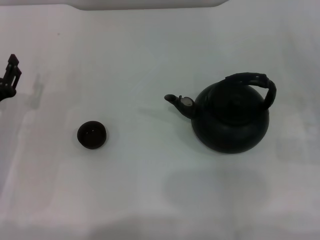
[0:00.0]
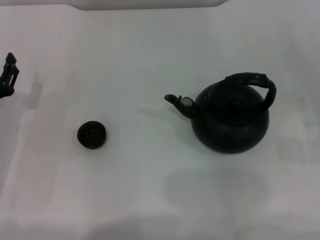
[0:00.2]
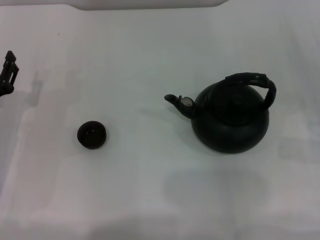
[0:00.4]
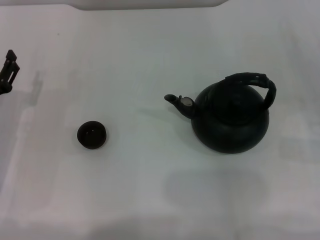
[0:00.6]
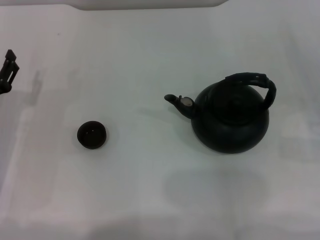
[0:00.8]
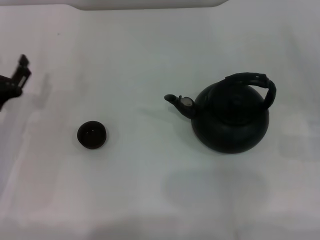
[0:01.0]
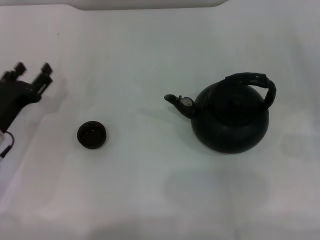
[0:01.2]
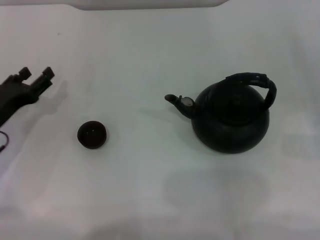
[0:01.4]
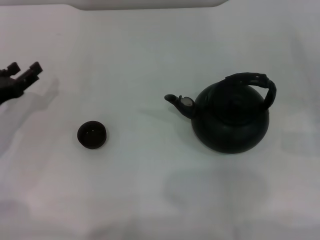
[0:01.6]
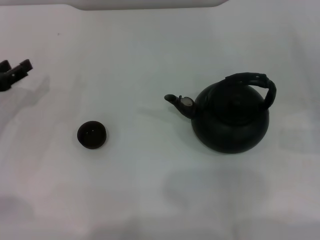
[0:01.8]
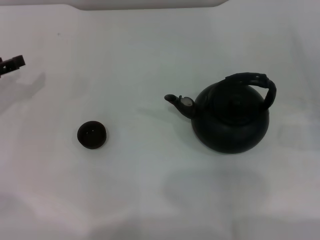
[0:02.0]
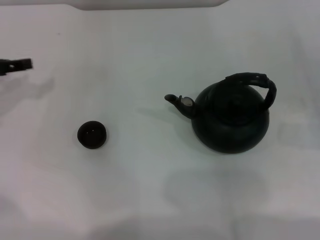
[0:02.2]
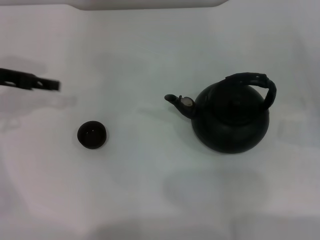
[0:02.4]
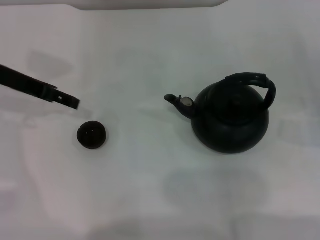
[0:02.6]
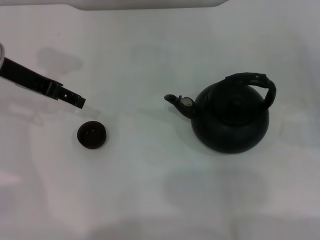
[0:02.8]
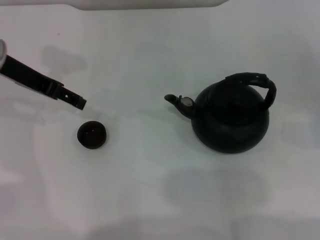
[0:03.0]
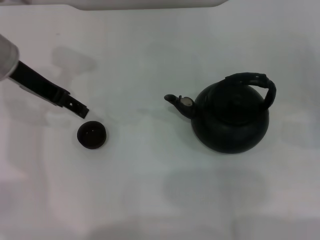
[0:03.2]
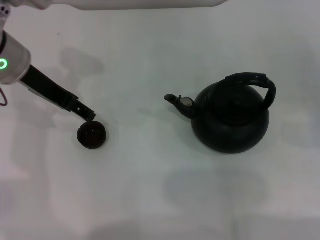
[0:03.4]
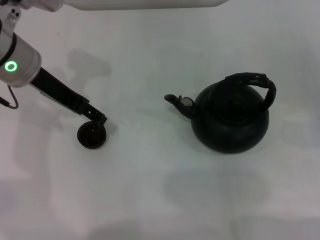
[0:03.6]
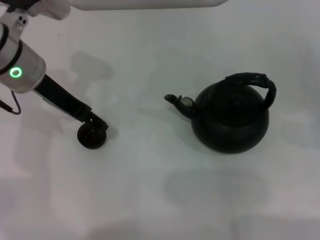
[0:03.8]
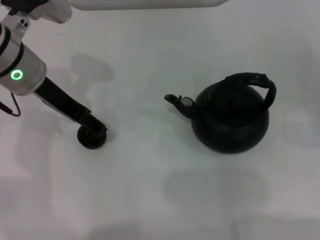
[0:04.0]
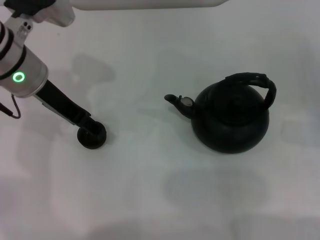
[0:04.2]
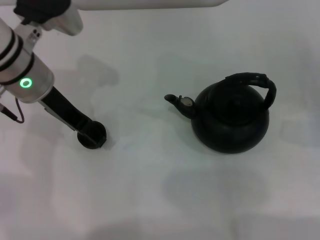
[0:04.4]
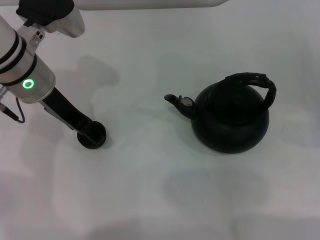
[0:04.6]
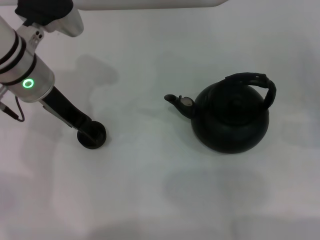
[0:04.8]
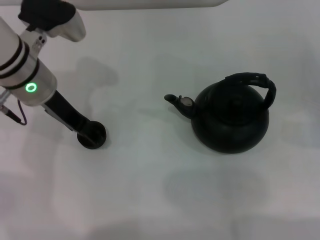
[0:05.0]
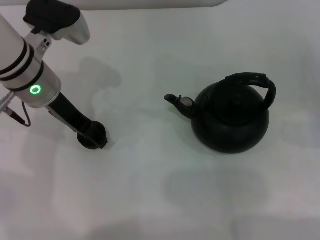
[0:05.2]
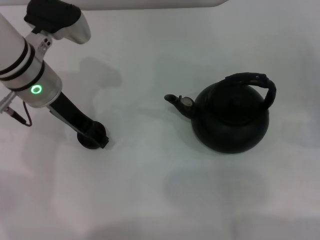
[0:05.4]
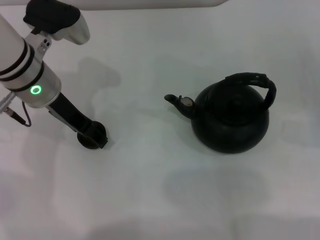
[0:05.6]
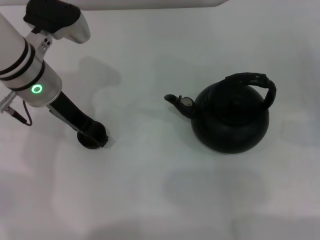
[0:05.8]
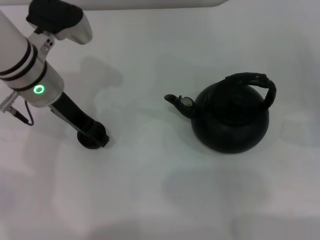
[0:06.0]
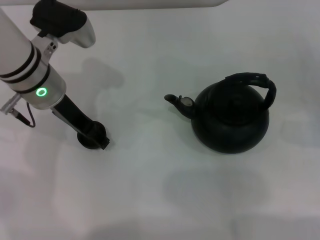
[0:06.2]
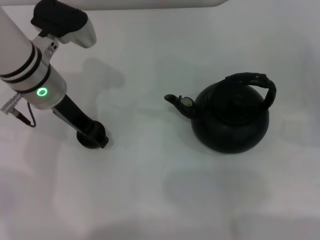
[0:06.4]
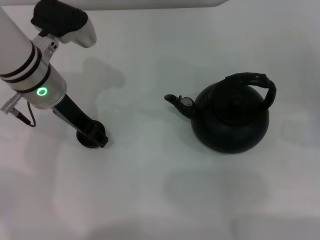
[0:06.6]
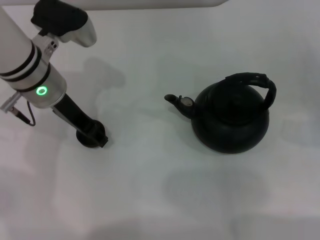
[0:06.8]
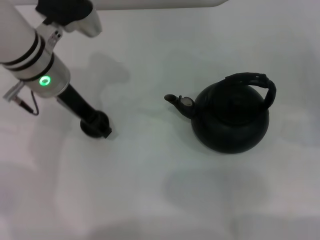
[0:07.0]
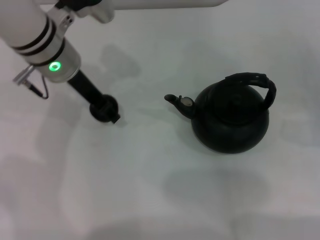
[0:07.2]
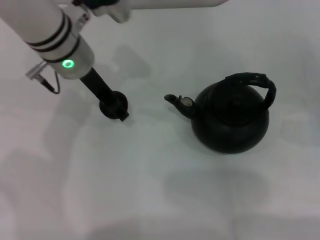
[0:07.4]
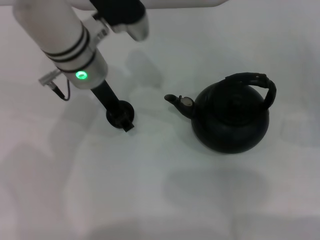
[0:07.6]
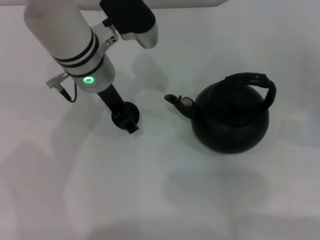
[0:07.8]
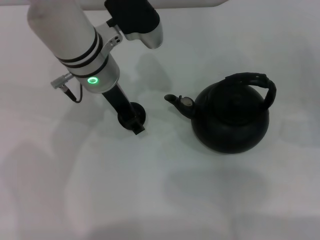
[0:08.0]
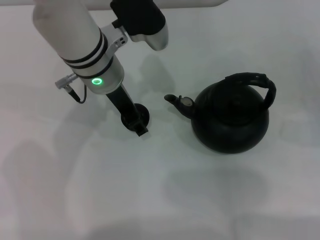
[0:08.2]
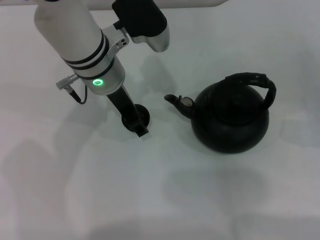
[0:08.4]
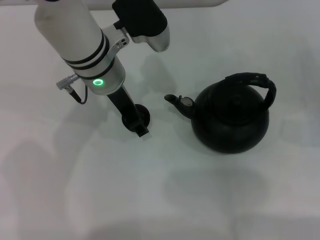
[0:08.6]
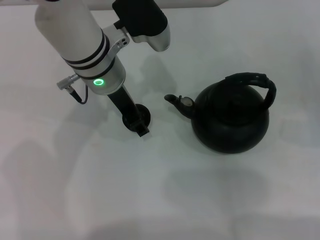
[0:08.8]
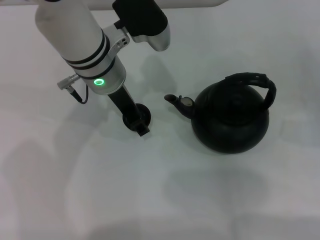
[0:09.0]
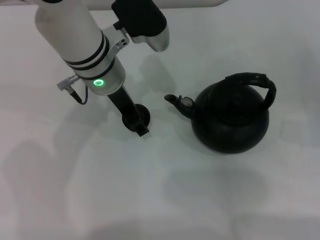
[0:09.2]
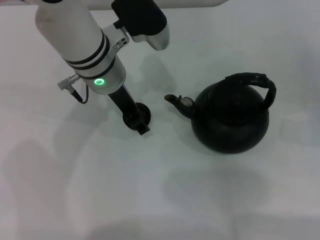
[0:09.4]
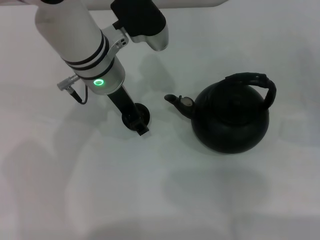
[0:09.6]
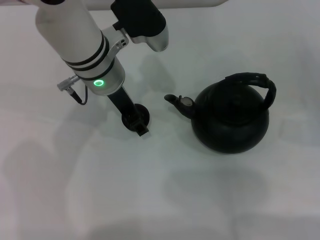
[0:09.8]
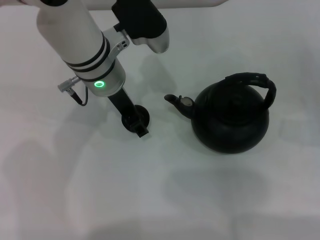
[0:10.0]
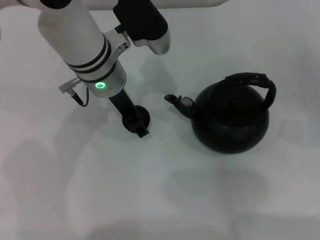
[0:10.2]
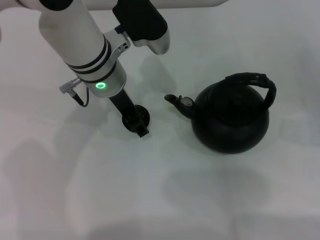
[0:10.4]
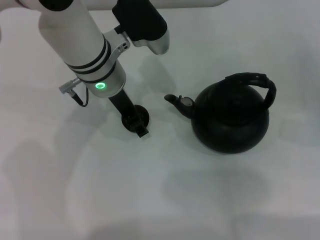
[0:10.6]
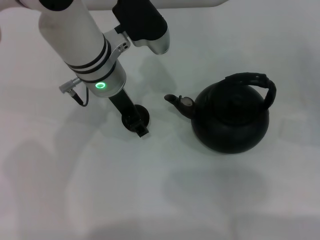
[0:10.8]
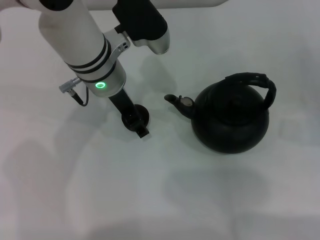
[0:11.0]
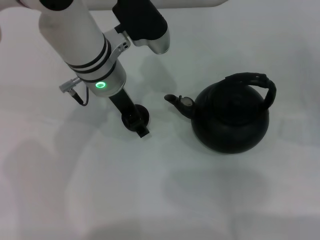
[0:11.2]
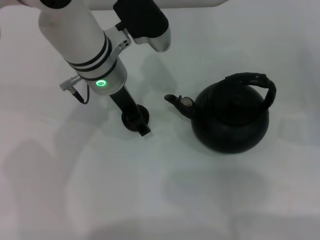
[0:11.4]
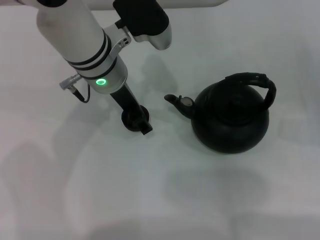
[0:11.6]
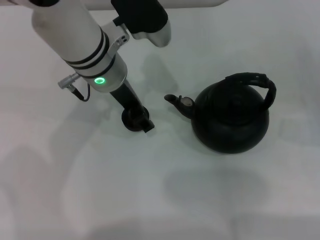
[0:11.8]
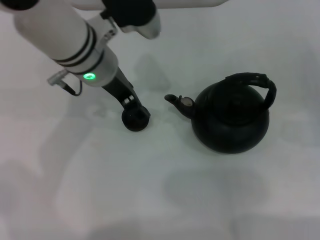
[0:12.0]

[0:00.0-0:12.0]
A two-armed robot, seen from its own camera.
Task of the whole recording: Grasp the handle of the teapot with one hand and pour tea into the teacup.
Step, 0:00.0 to 0:07.0: Pick up the teacup with the left gripper.
0:00.0 to 0:01.6: The left gripper opens its fingers.
0:01.6 to 0:03.0: The left gripper heads upward, to the right and forward, covering roughly 20 cm.
0:03.0 to 0:04.4: The left gripper shifts roughly 5 cm to the right.
0:04.4 to 0:06.0: The grippers stay close to where they were, moving slightly.
0:06.0 to 0:07.6: The left gripper heads to the right, covering some 5 cm, and closes up.
0:07.6 to 0:09.0: The grippers move only a little.
0:09.0 to 0:10.4: Both grippers stay about where they are.
0:10.4 to 0:12.0: The left gripper opens its fingers.

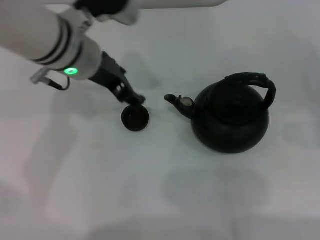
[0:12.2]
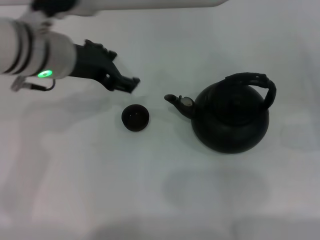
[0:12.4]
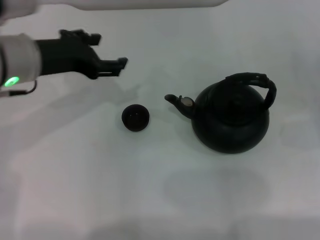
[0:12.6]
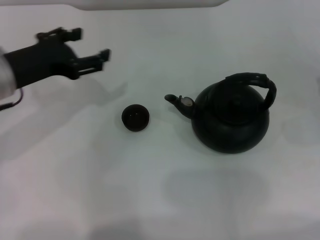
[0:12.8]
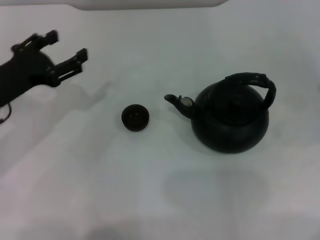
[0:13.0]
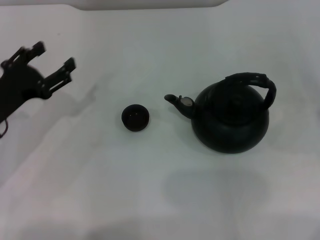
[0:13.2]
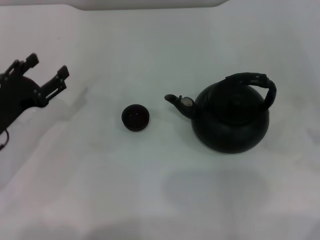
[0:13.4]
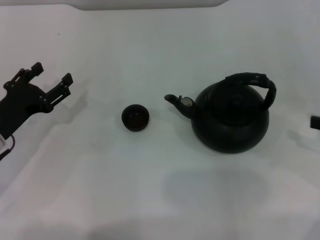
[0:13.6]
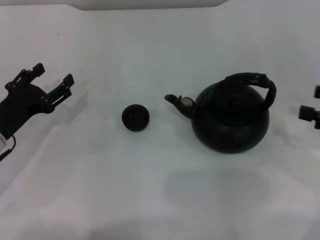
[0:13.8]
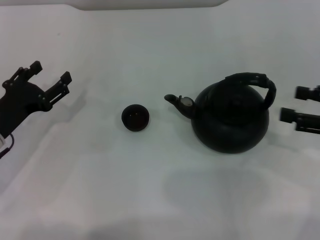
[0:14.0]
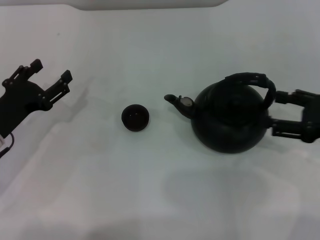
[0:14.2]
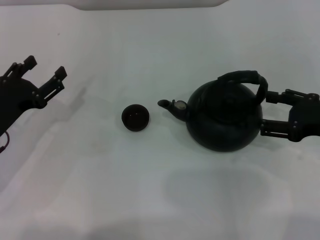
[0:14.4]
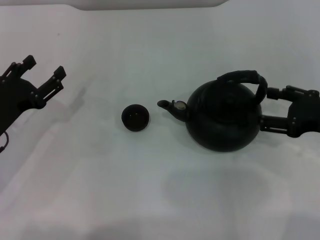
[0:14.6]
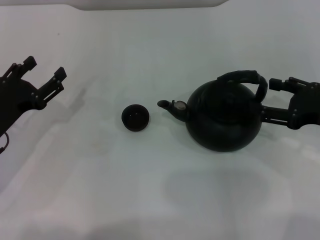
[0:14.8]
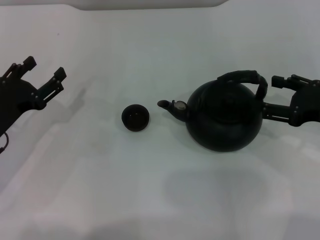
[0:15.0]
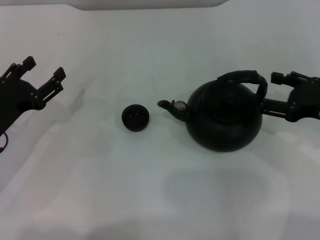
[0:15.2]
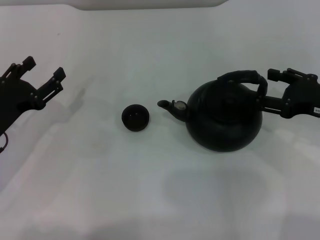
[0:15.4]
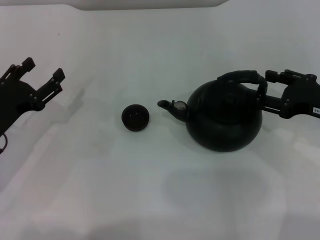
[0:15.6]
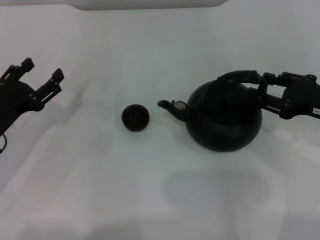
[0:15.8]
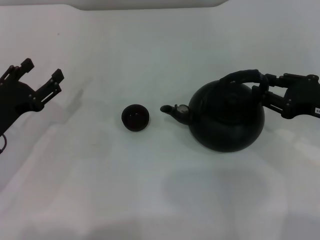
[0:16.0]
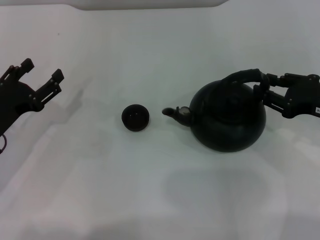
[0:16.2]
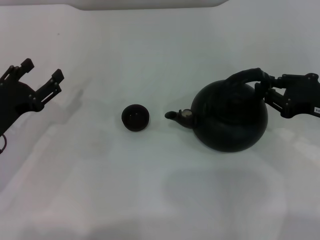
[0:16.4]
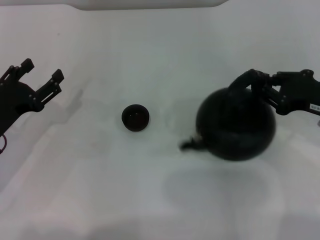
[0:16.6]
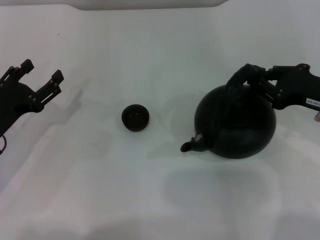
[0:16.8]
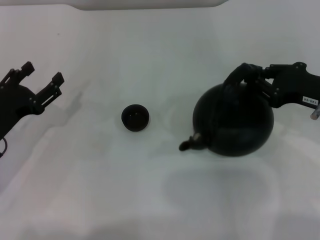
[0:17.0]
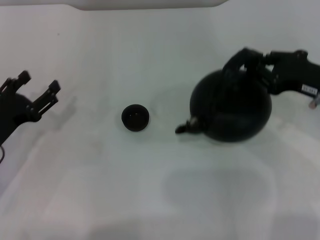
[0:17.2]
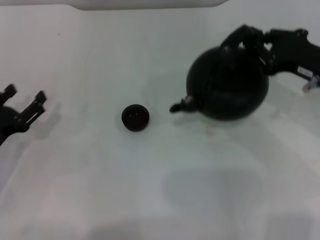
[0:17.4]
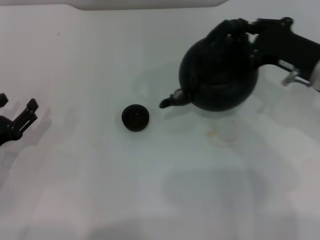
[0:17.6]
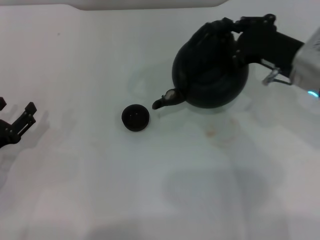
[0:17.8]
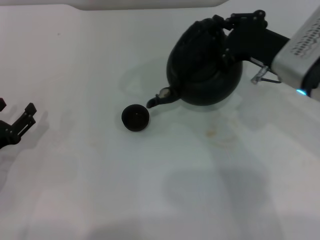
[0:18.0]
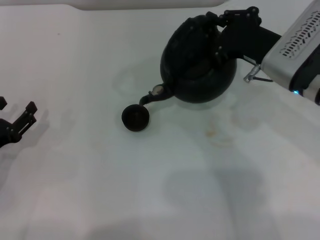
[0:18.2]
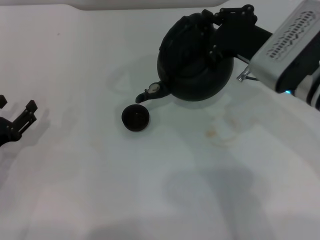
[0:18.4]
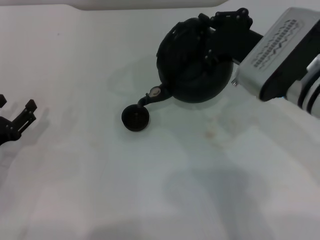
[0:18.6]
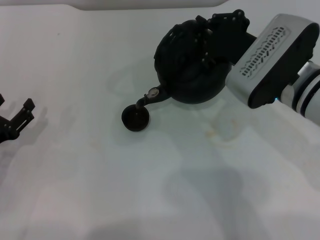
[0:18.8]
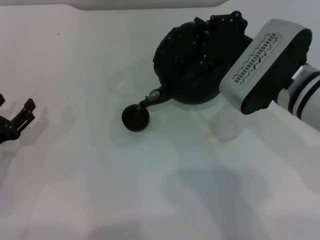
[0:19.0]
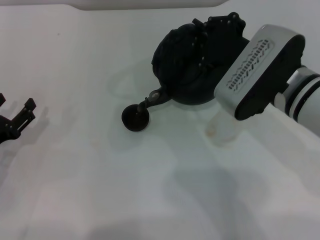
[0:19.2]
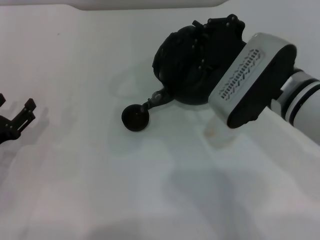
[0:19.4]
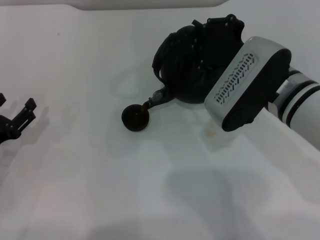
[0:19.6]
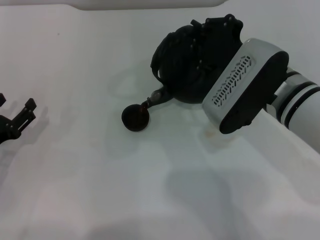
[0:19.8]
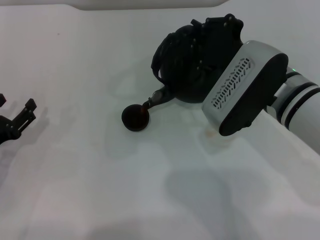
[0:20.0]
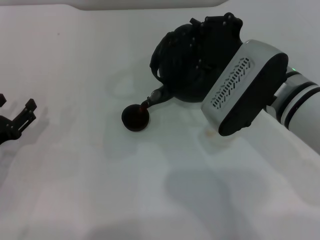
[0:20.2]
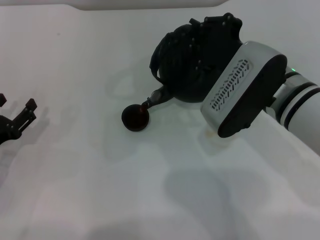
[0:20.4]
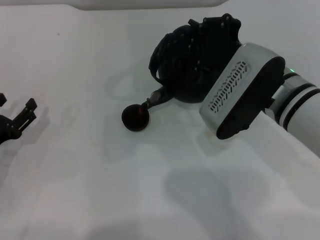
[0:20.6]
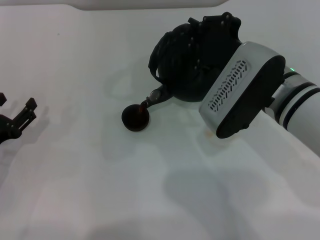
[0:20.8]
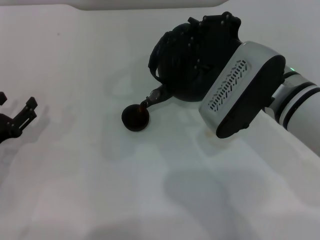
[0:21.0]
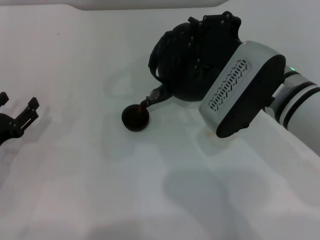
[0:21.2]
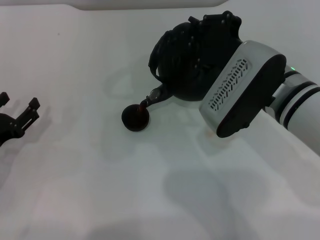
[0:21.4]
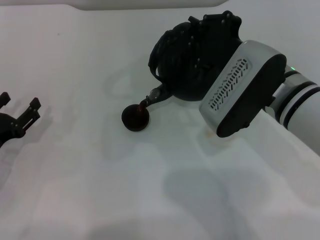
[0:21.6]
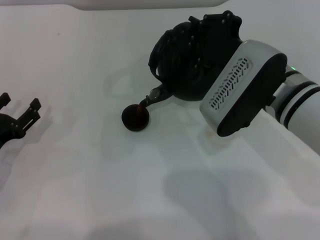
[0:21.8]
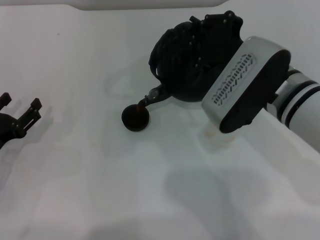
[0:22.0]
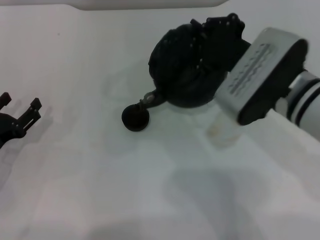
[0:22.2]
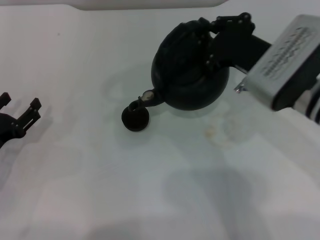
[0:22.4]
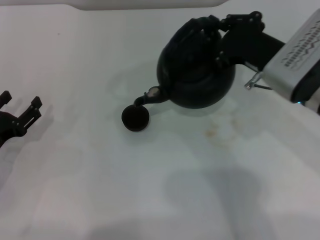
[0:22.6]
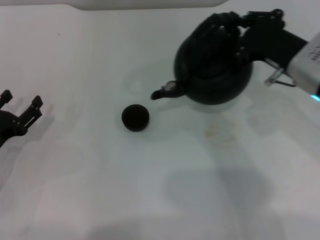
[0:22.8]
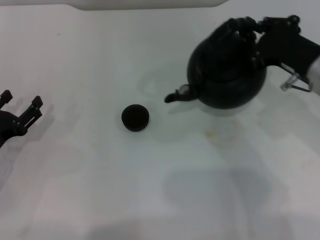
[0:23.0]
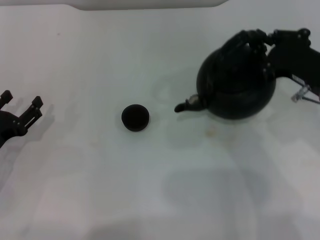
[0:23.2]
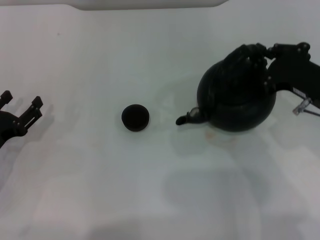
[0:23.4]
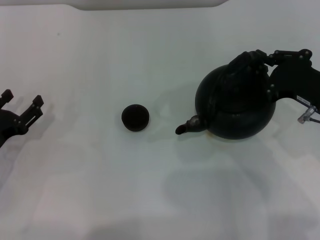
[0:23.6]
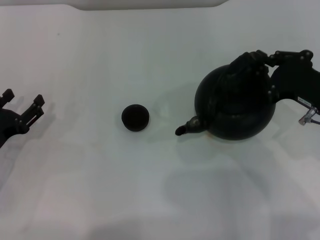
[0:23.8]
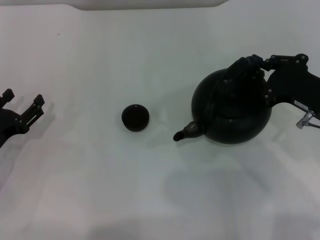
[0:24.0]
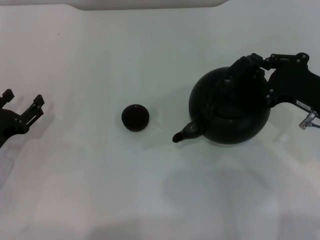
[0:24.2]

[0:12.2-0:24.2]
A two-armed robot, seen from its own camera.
Task of the whole recording: Grasp the handle of the teapot with one hand and pour tea into the teacup.
Step, 0:12.4 to 0:17.2: Pick up the teapot with the right gripper.
Step, 0:17.4 to 0:22.8: Pour tea into the teacup with the right gripper.
0:12.2 to 0:13.8: The left gripper travels to the left, downward and backward by approximately 25 cm. The right gripper moves upward, about 10 cm.
0:13.8 to 0:15.2: The right gripper is displaced to the left by some 5 cm.
0:15.2 to 0:16.6: The right gripper closes its fingers.
0:16.6 to 0:18.2: The left gripper shifts by approximately 5 cm. Meanwhile the right gripper moves to the left, approximately 10 cm.
0:18.2 to 0:19.8: The right gripper shifts by approximately 5 cm.
0:19.8 to 0:21.2: Neither gripper changes place.
0:21.2 to 0:22.6: The right gripper shifts by roughly 5 cm.
0:22.6 to 0:24.2: The right gripper is displaced to the right by some 10 cm.
